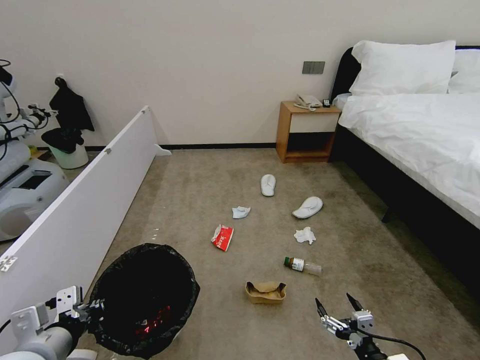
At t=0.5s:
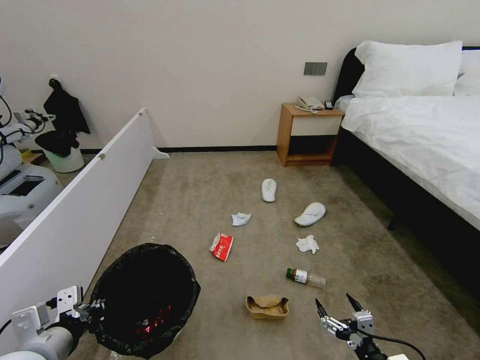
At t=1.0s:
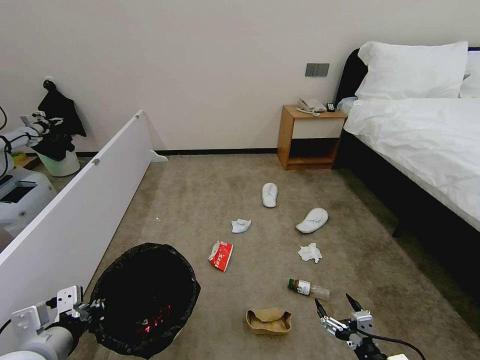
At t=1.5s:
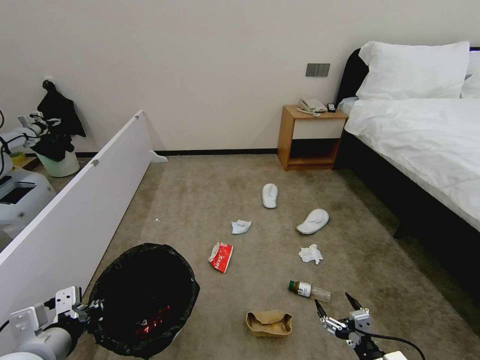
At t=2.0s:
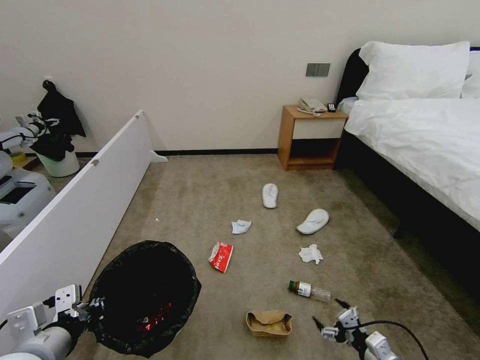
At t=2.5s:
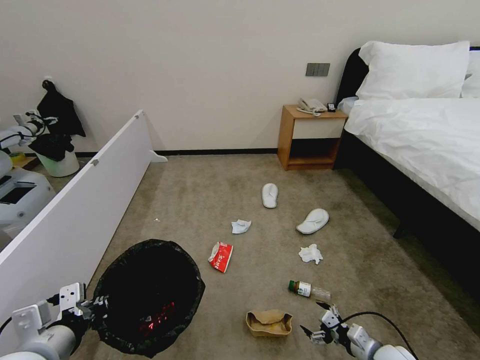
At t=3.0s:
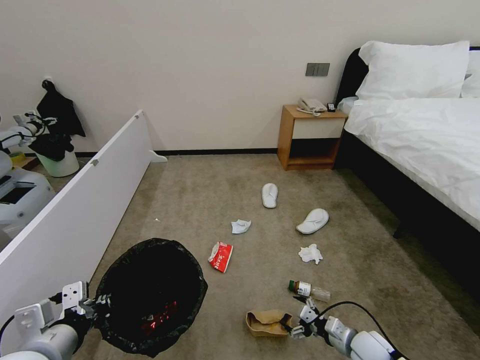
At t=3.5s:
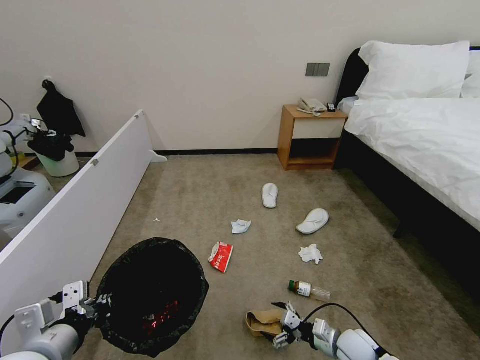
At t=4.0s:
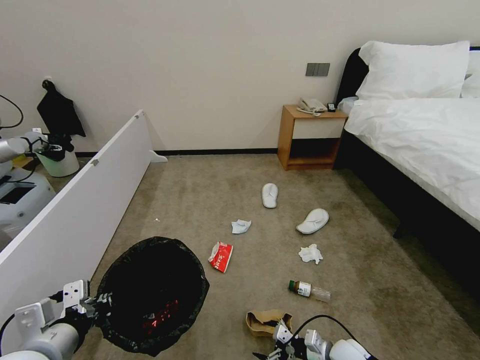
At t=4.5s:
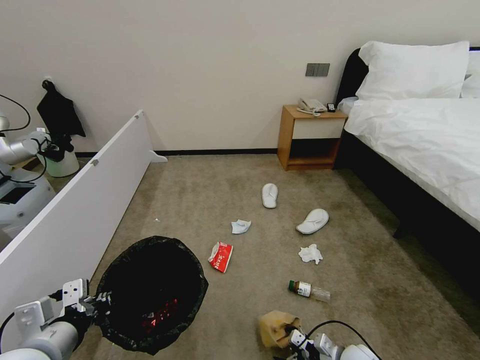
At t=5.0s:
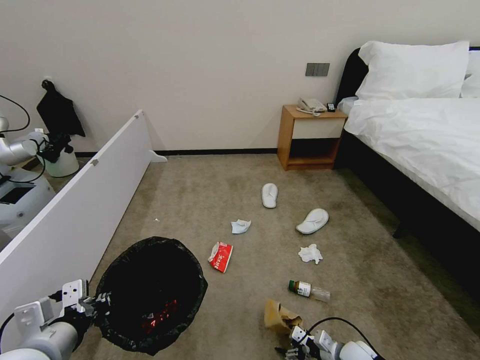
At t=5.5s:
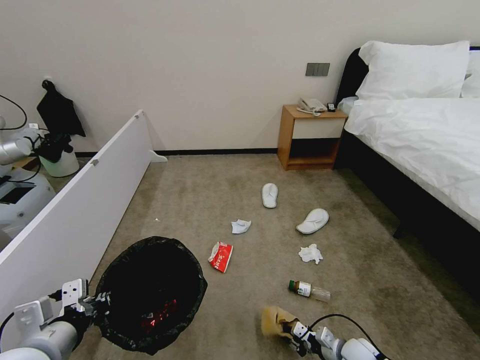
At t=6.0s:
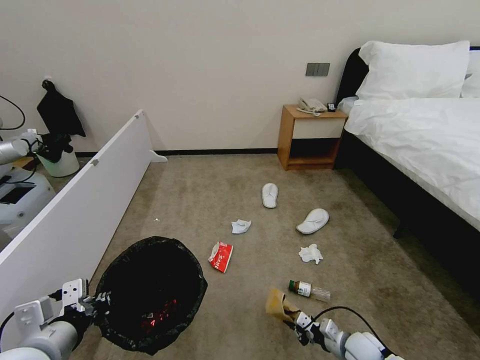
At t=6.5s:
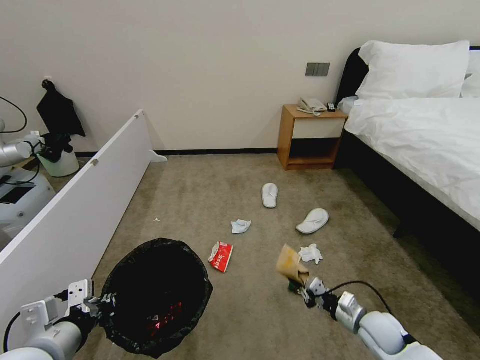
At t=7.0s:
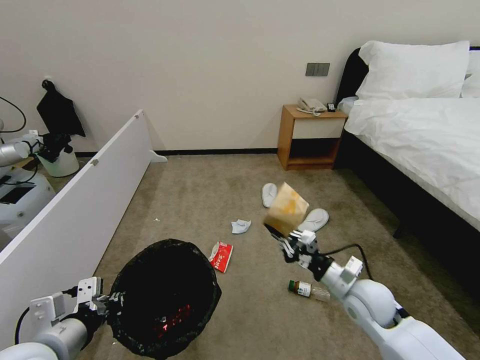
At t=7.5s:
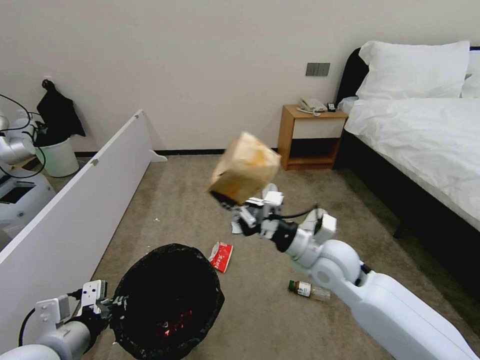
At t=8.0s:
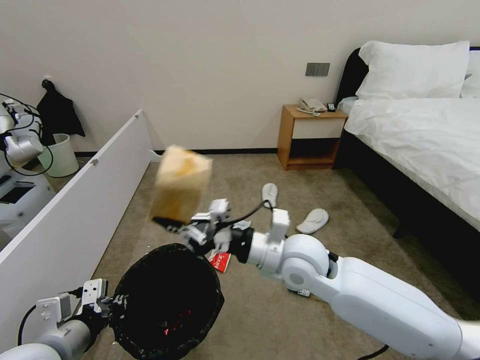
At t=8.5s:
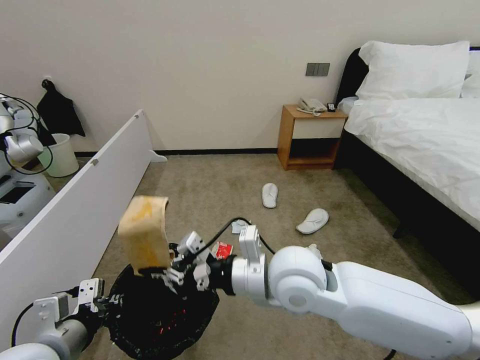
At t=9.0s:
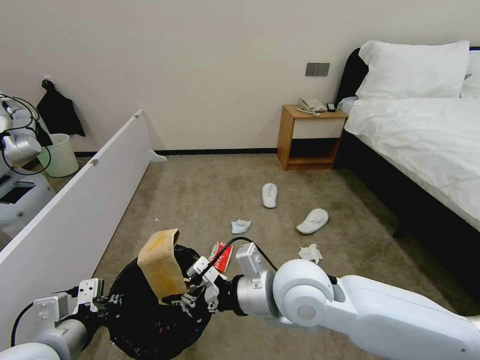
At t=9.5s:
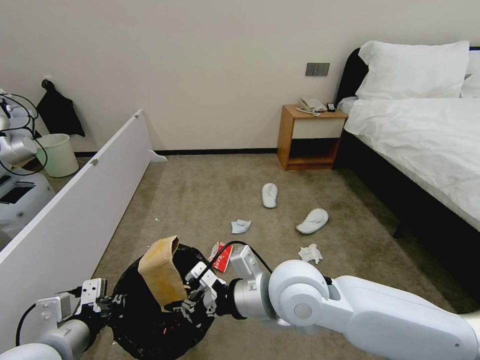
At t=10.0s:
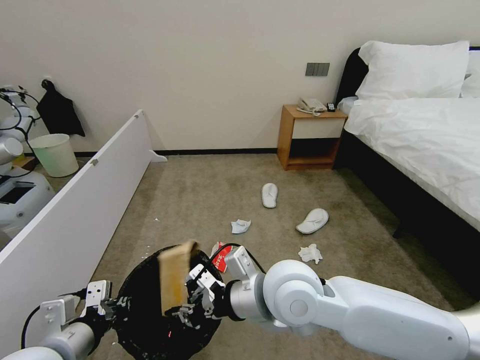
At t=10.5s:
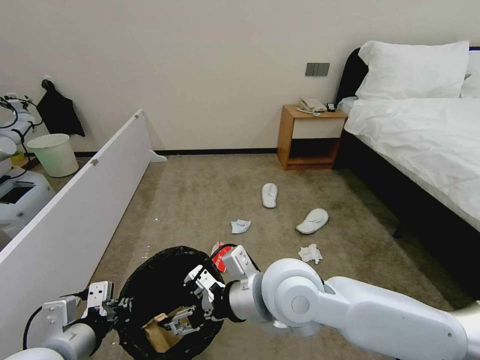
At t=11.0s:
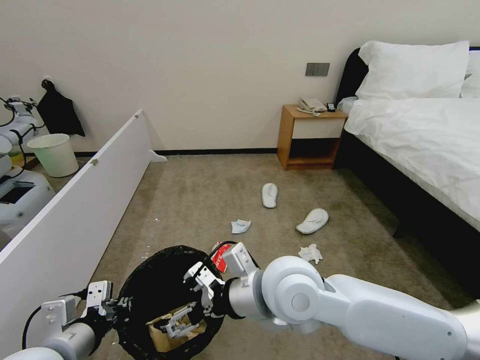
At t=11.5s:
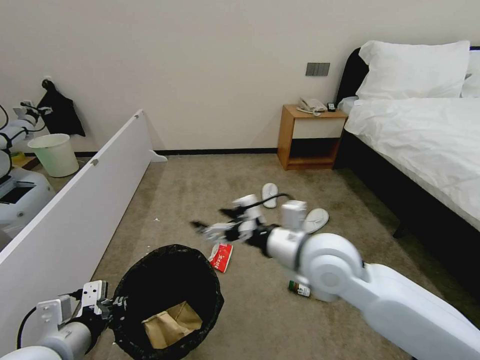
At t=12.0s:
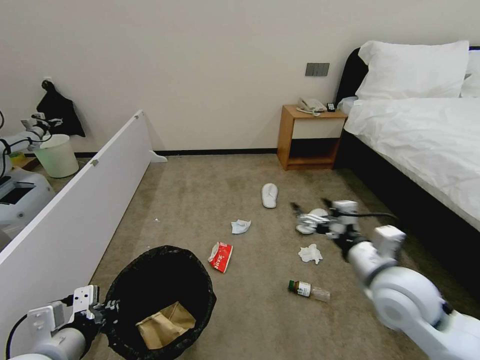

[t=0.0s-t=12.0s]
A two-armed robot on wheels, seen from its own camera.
Task of the whole recording: Pick up the trash bin, then pick up the garbage from the floor and place it into the trash bin.
t=0.0s to t=2.0s: The grippers stay close to where they were, moving slightly.
t=2.0s to t=4.0s: The right gripper travels forward, downward and to the left by roughly 15 cm.
t=4.0s to t=6.0s: The right gripper is displaced to the right by about 5 cm, and closes its fingers.
t=6.0s to t=8.0s: The right gripper travels upward and to the left by some 40 cm.
t=8.0s to t=10.0s: The right gripper is displaced backward by roughly 5 cm.
t=10.0s to t=12.0s: The right gripper travels to the right by about 20 cm, and opens.

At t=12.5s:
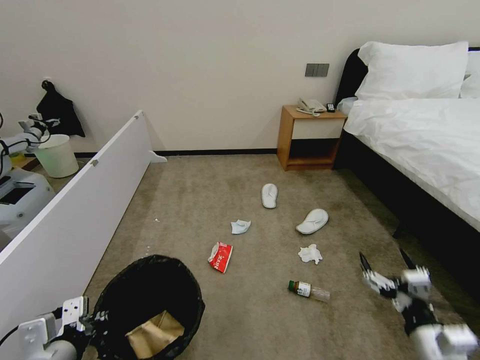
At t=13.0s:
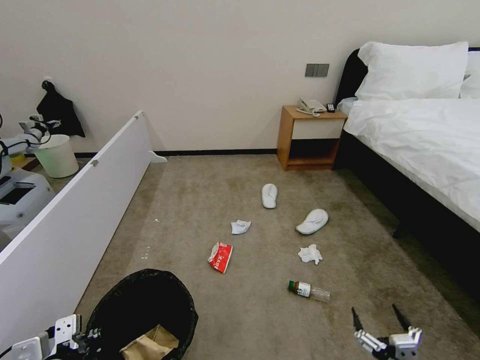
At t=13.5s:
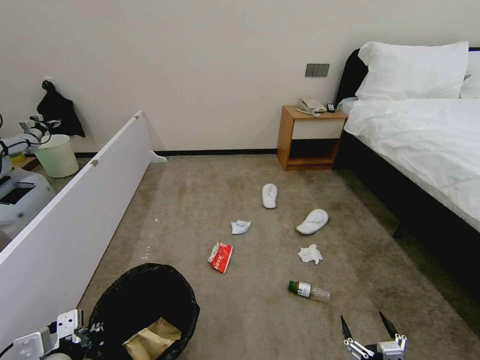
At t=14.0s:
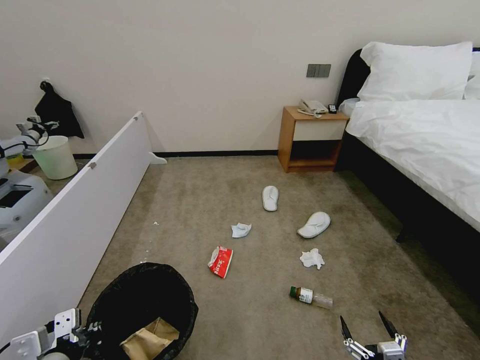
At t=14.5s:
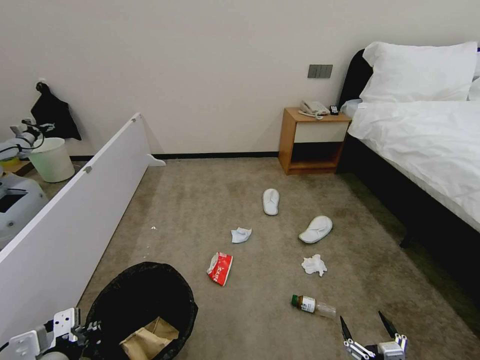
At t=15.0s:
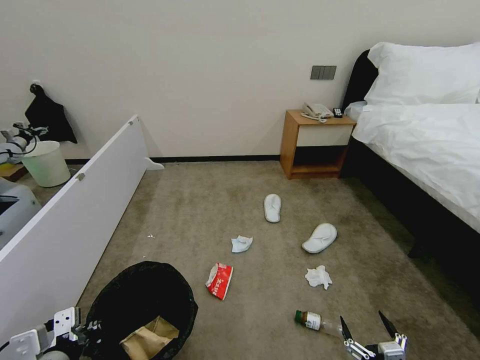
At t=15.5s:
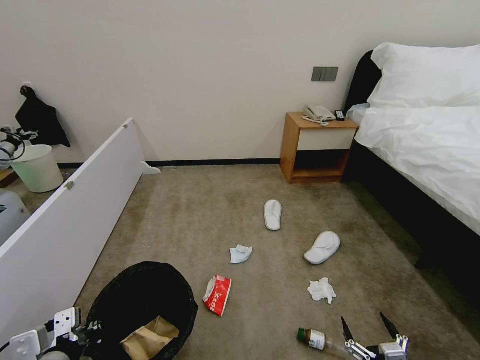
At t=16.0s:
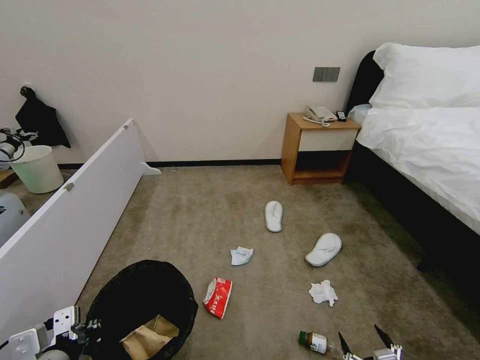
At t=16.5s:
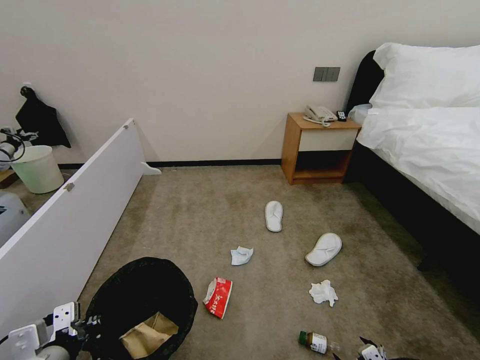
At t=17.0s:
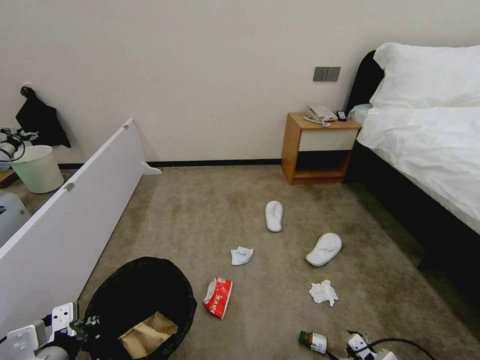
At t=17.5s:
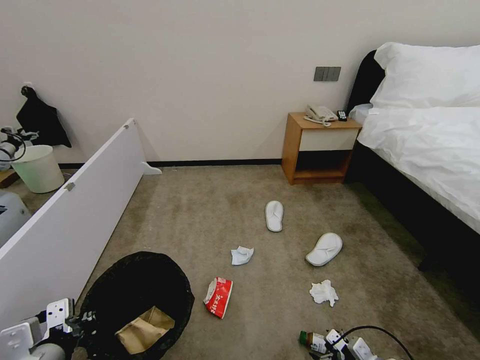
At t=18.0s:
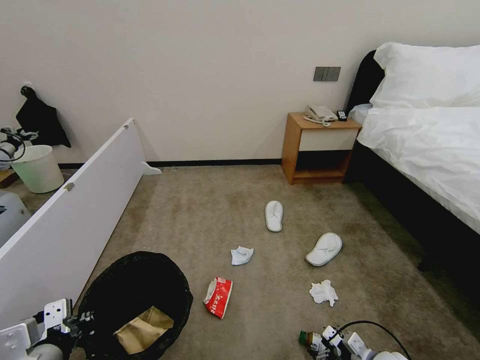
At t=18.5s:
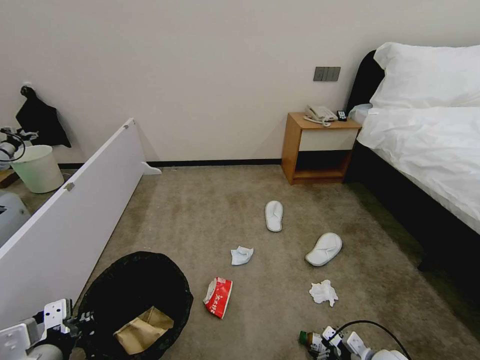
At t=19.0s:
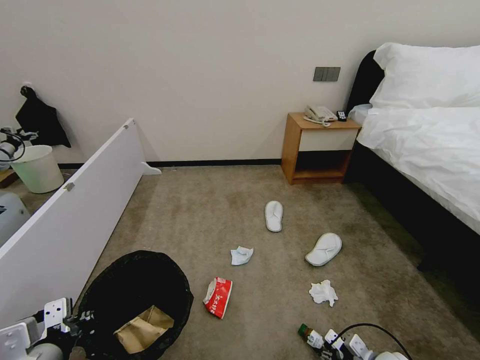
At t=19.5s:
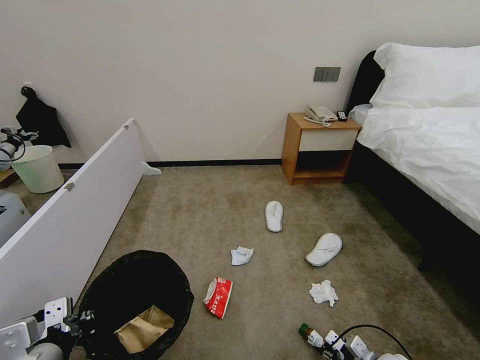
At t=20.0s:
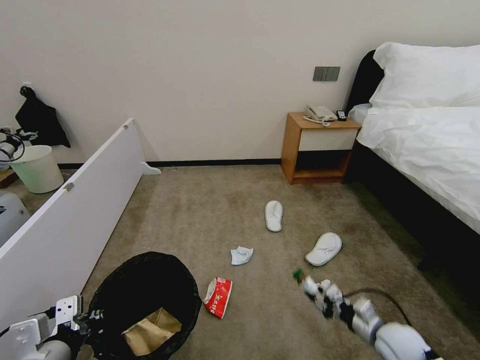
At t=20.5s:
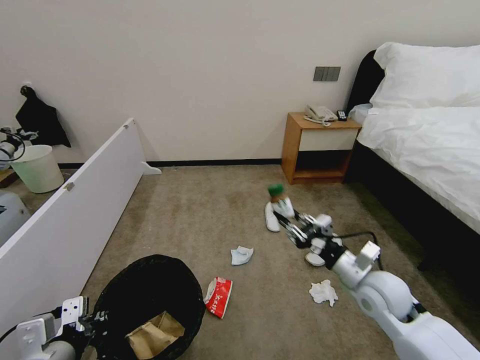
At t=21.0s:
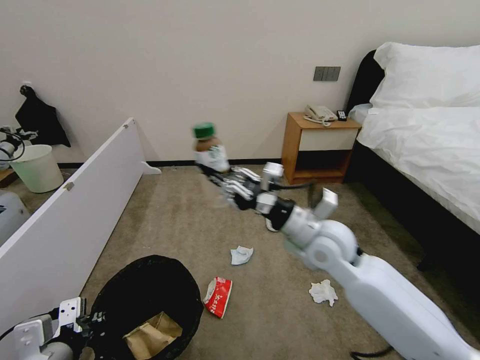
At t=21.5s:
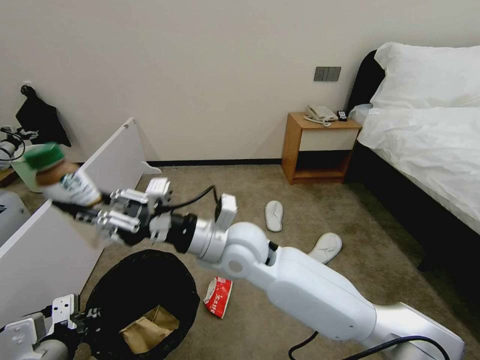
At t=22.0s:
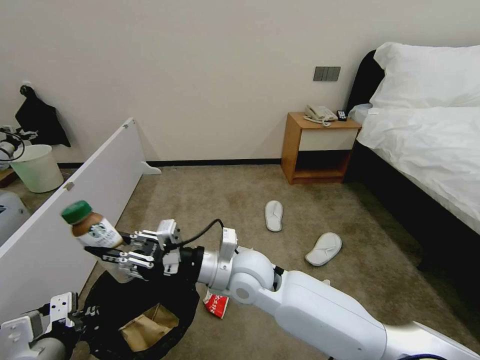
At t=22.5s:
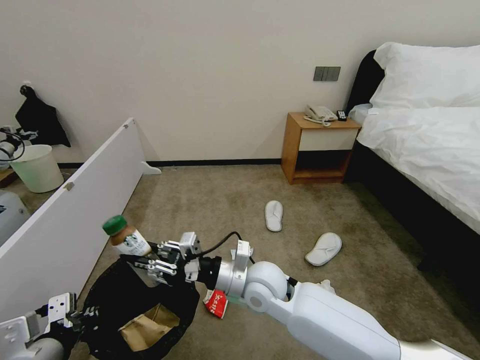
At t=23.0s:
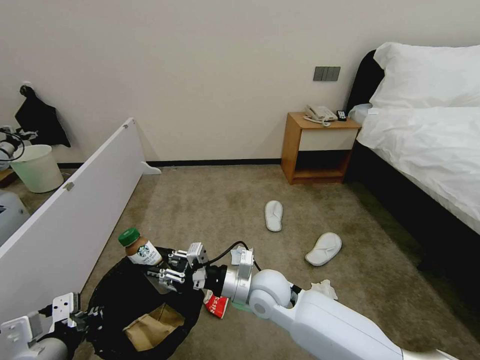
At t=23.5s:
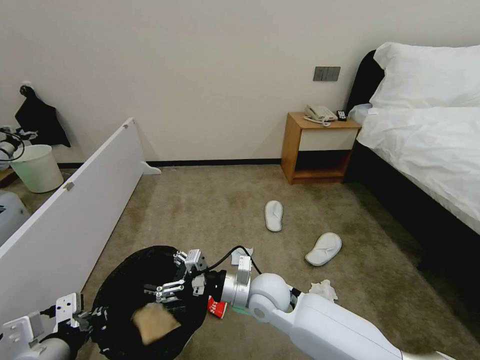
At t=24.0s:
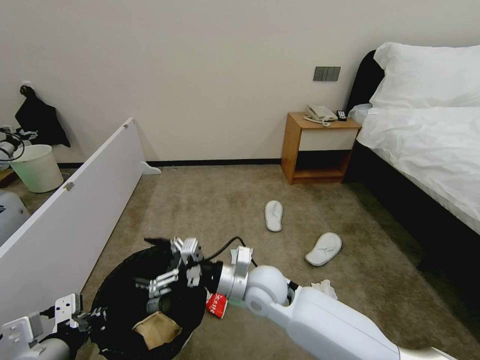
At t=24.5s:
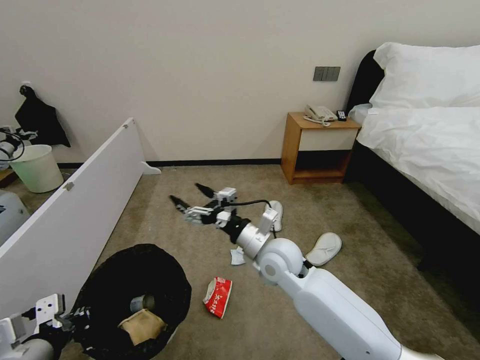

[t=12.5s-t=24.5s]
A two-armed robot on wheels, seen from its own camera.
Task of the whole recording: Pick up the trash bin, then pick up the garbage from the floor and place it into the trash bin.
t=12.5s to t=14.5s: The right gripper goes approximately 15 cm downward and backward.
t=14.5s to t=16.5s: The right gripper is displaced to the right by roughly 5 cm.
t=16.5s to t=18.5s: The right gripper goes roughly 15 cm forward and downward.
t=18.5s to t=20.5s: The right gripper is displaced upward by roughly 25 cm, and closes.
t=20.5s to t=22.5s: The right gripper heads to the left, covering about 25 cm.
t=22.5s to t=24.5s: The right gripper shifts by approximately 5 cm, and opens its fingers.

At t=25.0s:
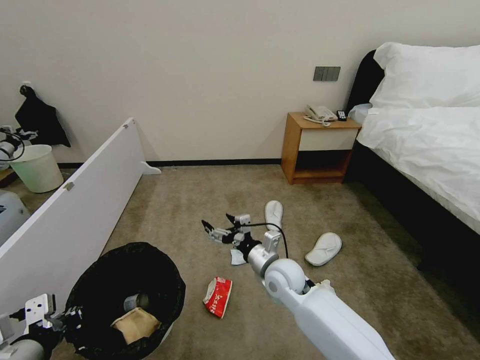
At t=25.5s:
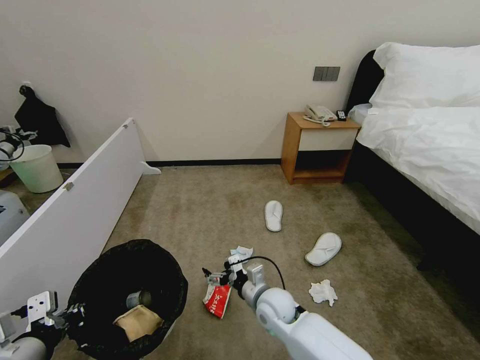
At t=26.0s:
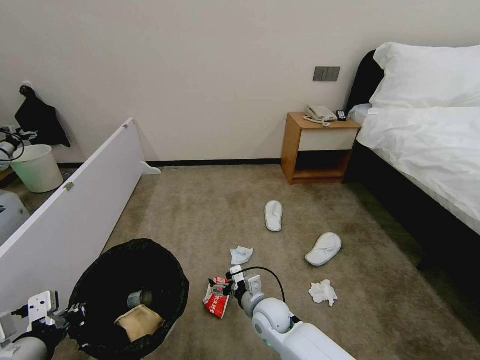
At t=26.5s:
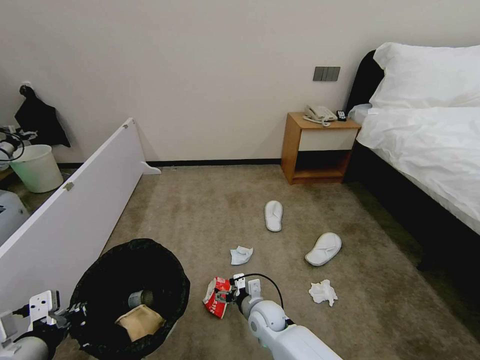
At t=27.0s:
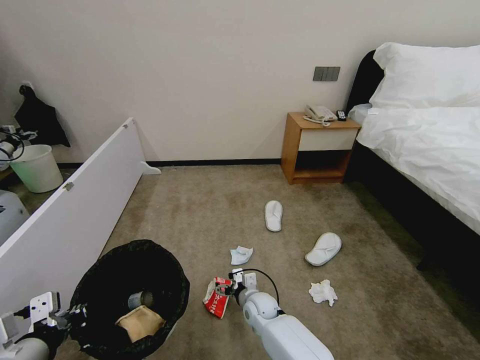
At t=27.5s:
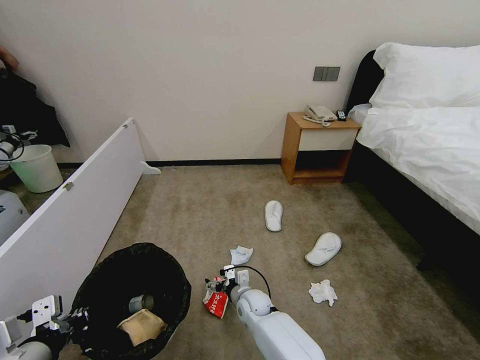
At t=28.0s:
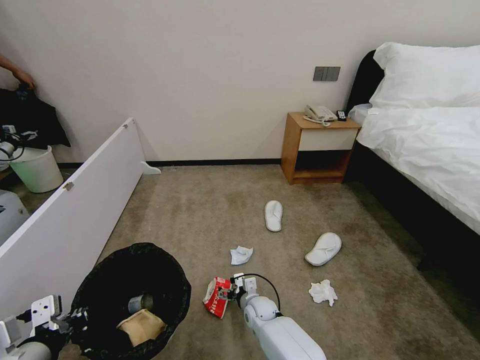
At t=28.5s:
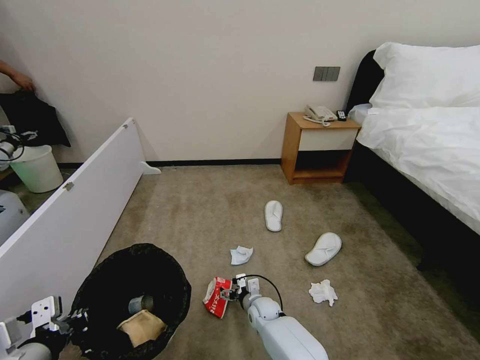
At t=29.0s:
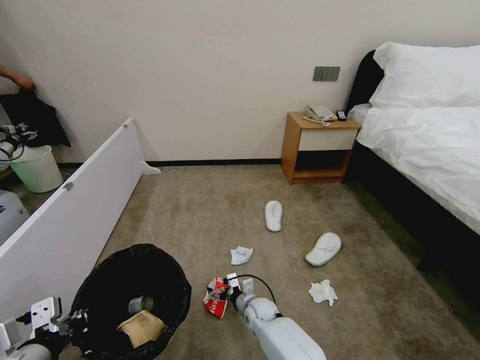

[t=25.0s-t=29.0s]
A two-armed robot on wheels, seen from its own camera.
Task of the whole recording: Pick up the trash bin, then pick up the garbage from the floor and place it into the trash bin.
t=25.0s to t=27.0s: The right gripper is displaced downward by about 15 cm.
t=27.0s to t=29.0s: The grippers make only small movements.
